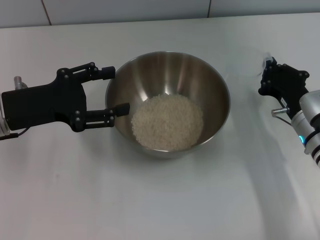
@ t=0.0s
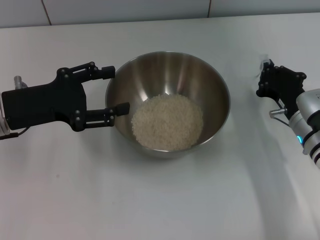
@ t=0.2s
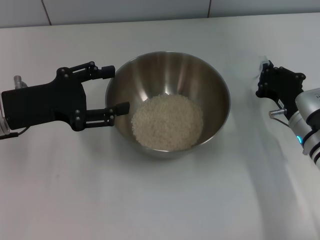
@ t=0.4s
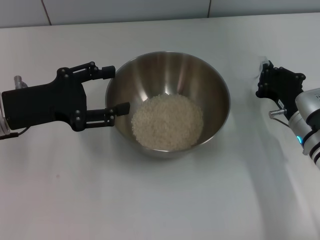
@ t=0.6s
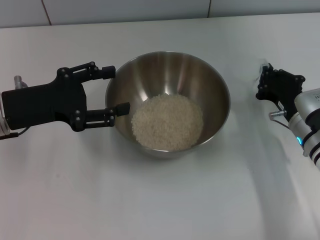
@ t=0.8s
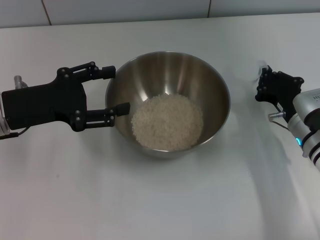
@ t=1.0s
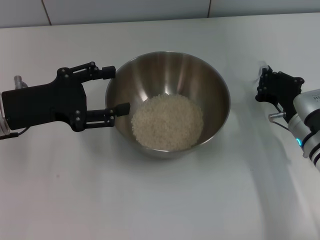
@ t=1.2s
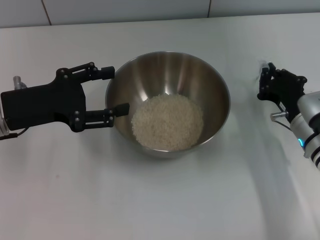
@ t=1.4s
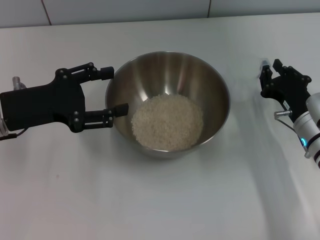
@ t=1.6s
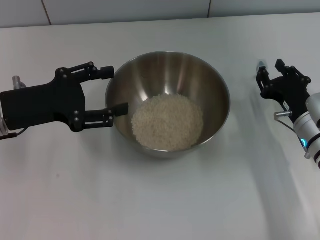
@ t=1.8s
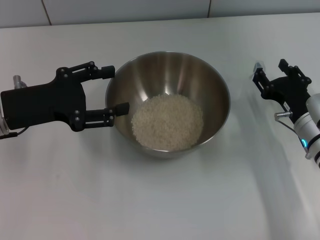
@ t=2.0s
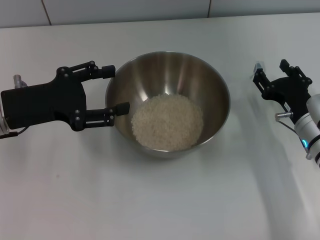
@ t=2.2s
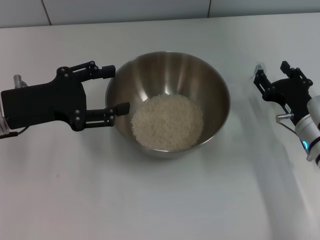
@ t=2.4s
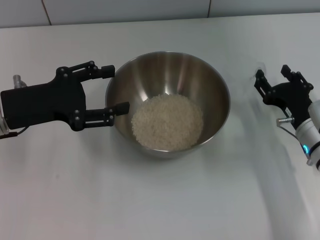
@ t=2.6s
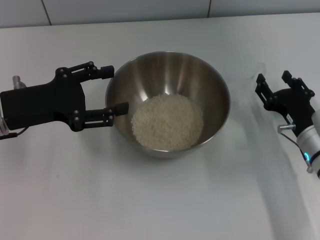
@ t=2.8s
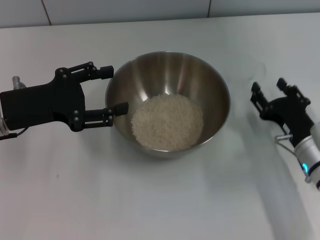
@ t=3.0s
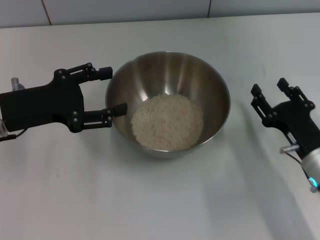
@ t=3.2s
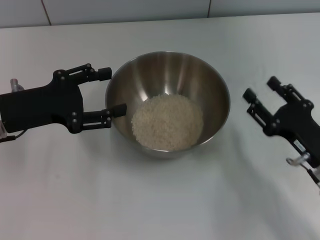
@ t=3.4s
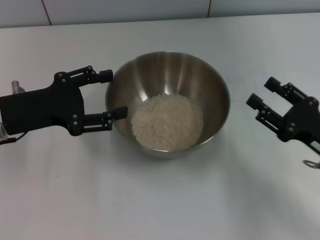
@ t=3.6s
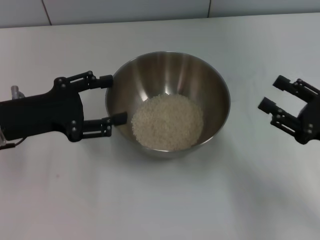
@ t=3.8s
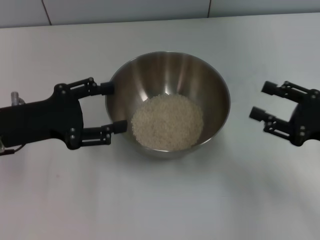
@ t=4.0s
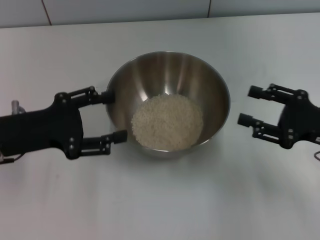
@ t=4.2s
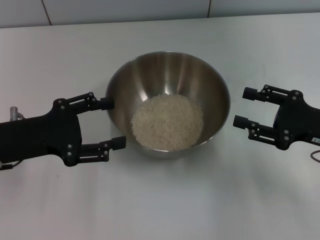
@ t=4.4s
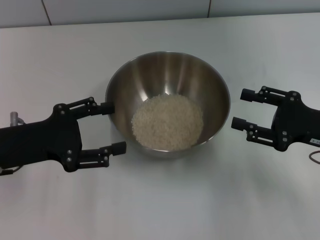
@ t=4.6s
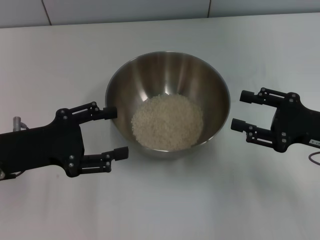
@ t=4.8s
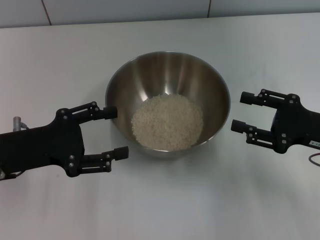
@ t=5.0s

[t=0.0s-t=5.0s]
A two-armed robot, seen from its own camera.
Task of the whole recording: Place the bowl in the middle of the table with one hand and pour the rice from the grain cup into it with the other hand.
Step, t=0.0s to t=2.4s: Place the cup on the table with the right gripper.
t=0.0s to t=1.6s: The two grippers keep their place.
t=1.6s to t=3.4s: The right gripper travels backward by approximately 10 cm, and opens.
t=3.4s to t=5.0s: The right gripper goes about 5 cm upward.
